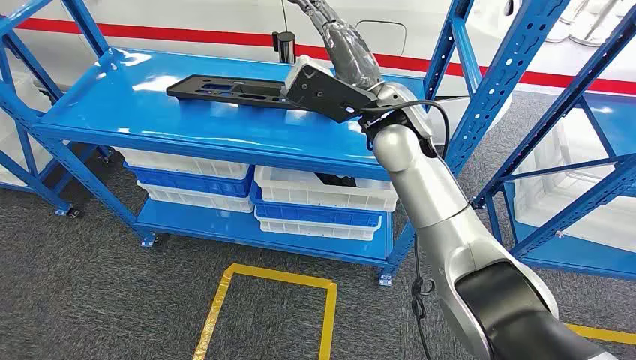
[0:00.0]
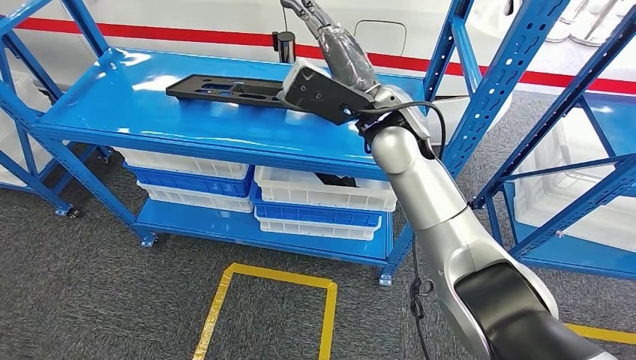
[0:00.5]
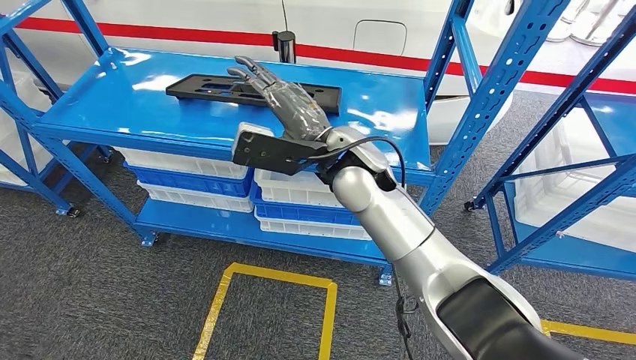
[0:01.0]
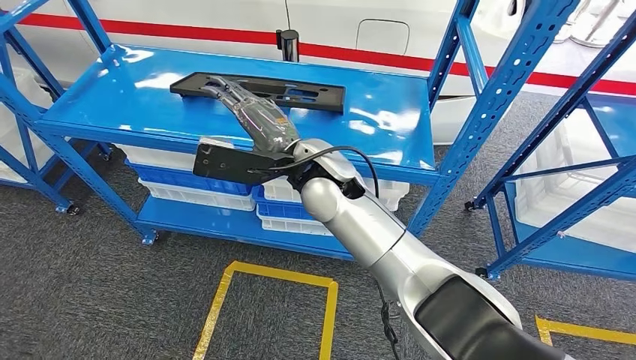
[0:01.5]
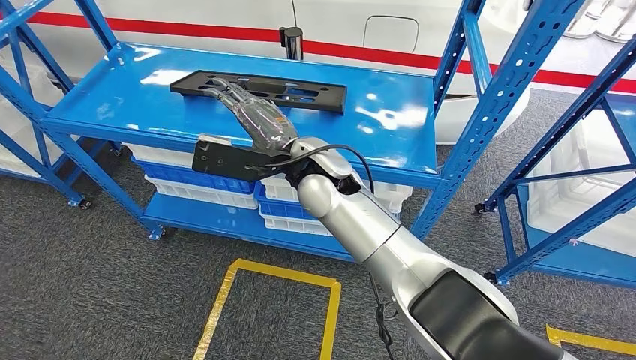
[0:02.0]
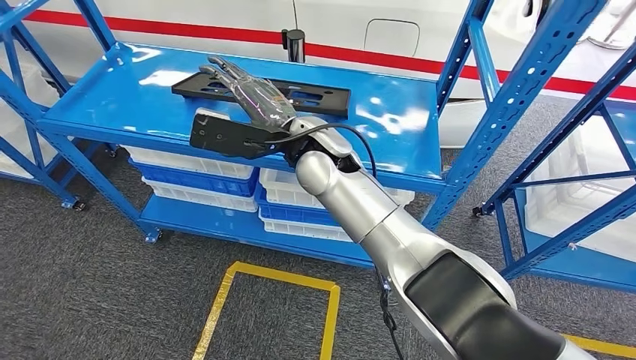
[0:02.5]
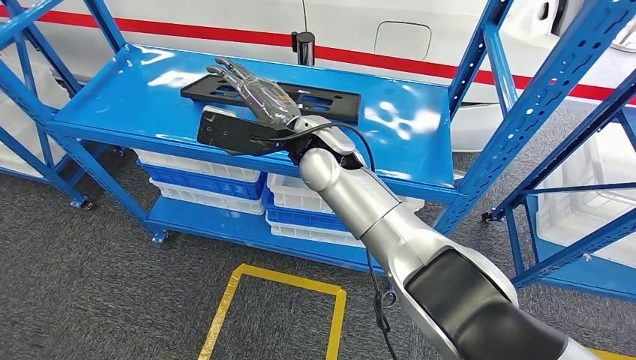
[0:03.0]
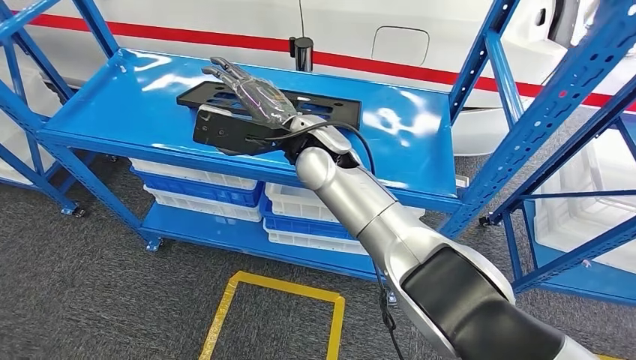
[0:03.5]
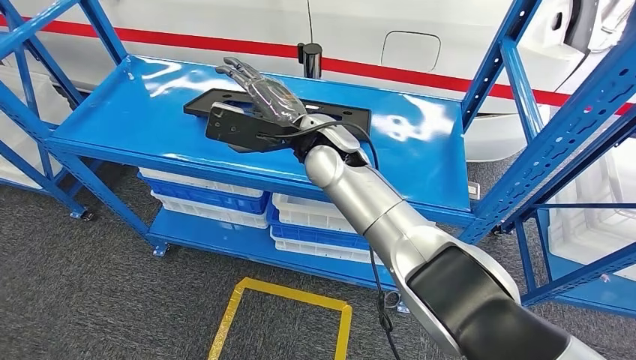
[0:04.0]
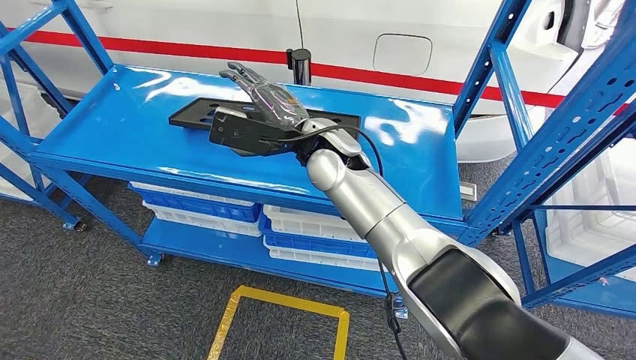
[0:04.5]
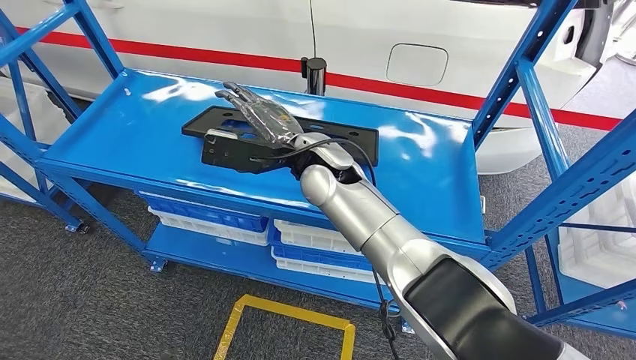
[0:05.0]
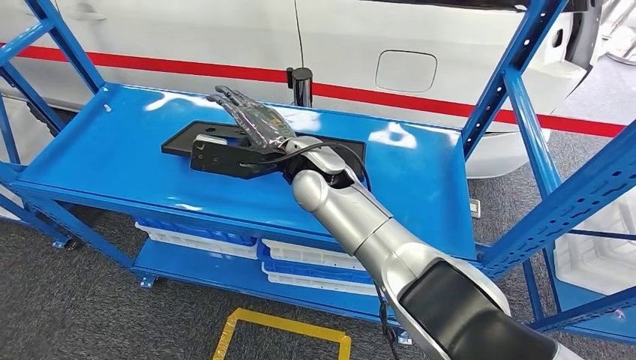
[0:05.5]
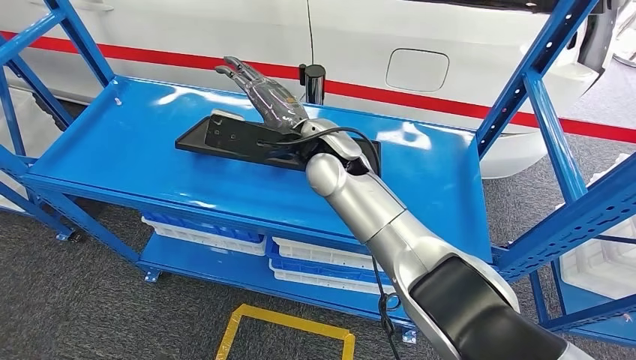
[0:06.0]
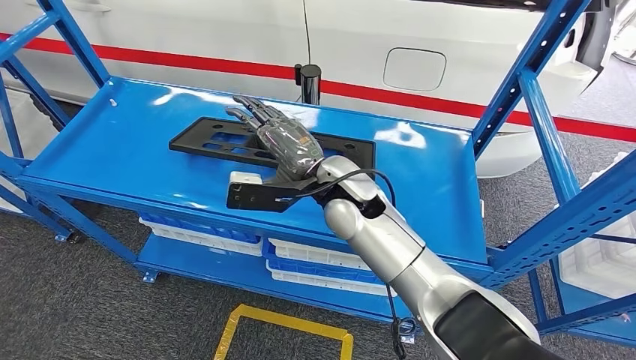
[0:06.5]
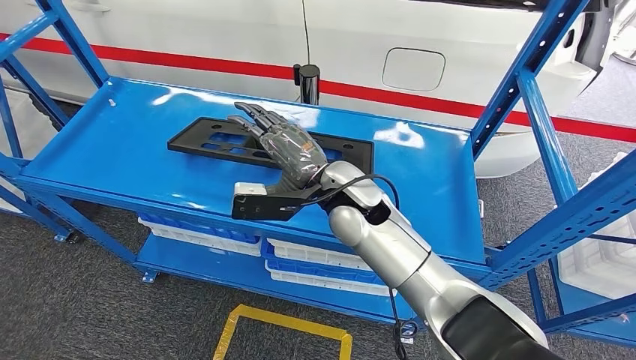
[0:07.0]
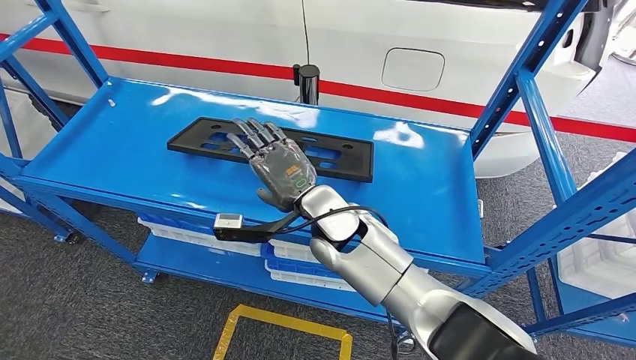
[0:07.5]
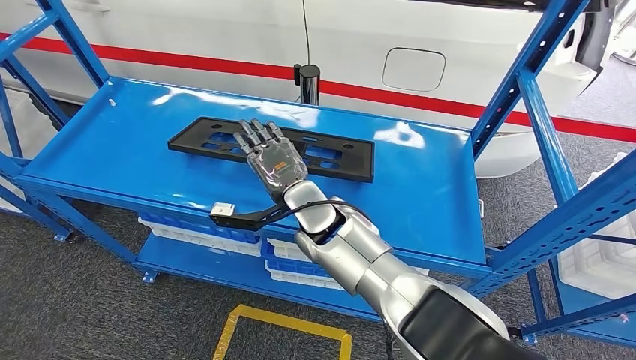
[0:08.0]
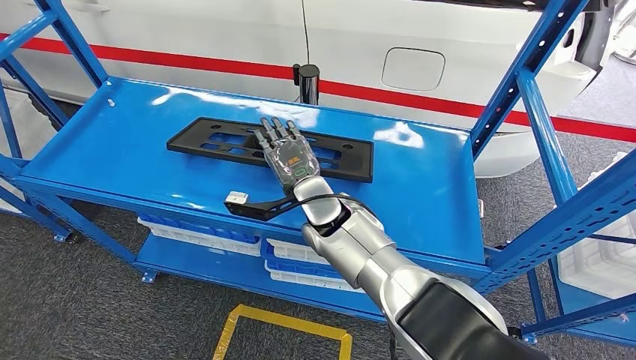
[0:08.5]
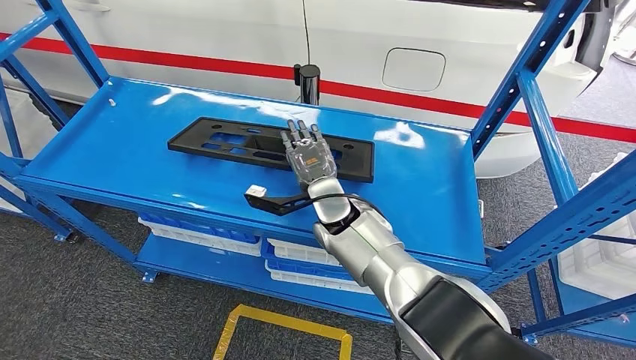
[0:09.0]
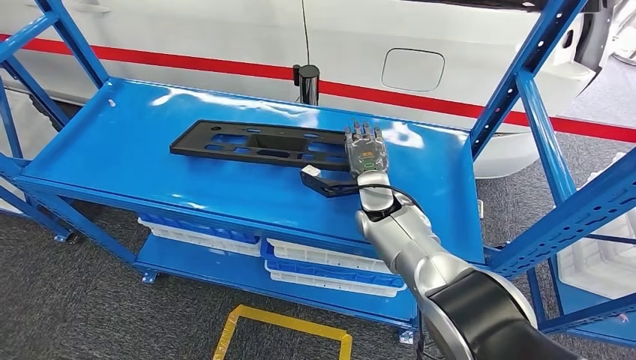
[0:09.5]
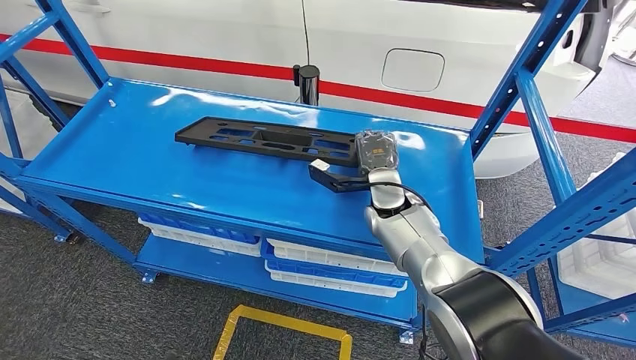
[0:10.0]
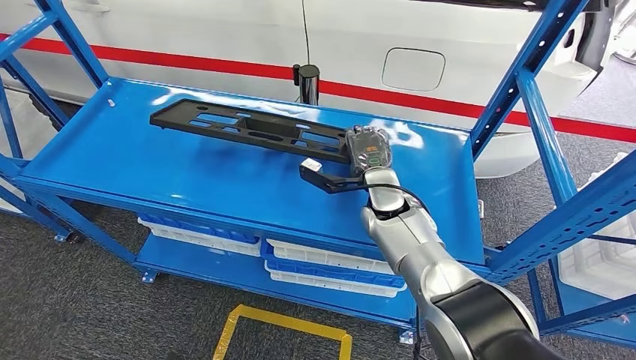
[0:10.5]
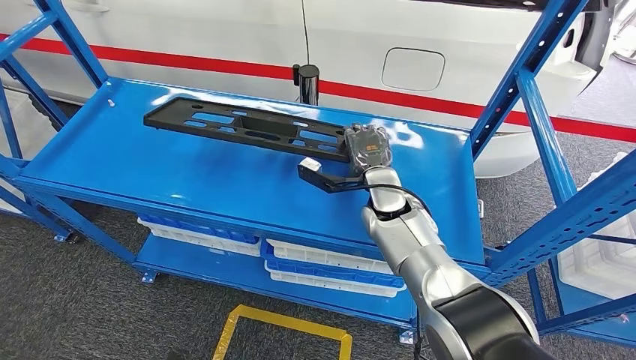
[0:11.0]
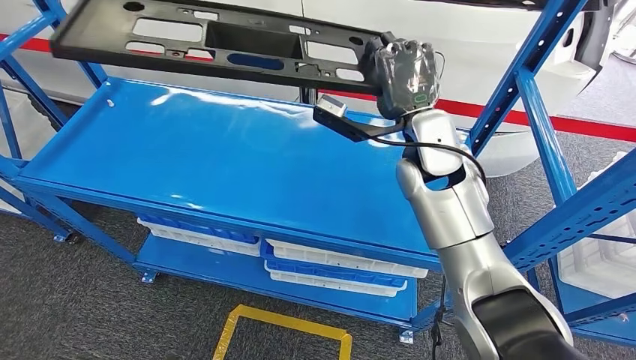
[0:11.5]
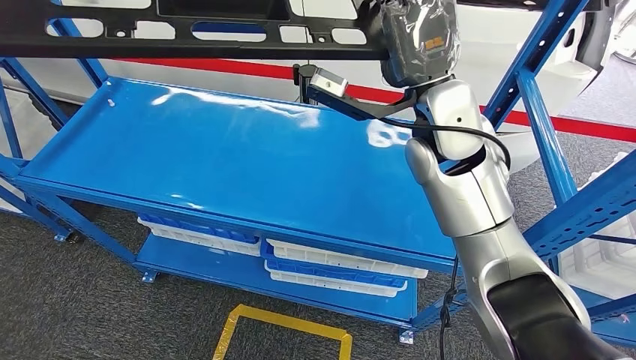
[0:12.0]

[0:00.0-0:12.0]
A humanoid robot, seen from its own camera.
0:08.0 to 0:10.0: The right hand travels to the right by some 15 cm.

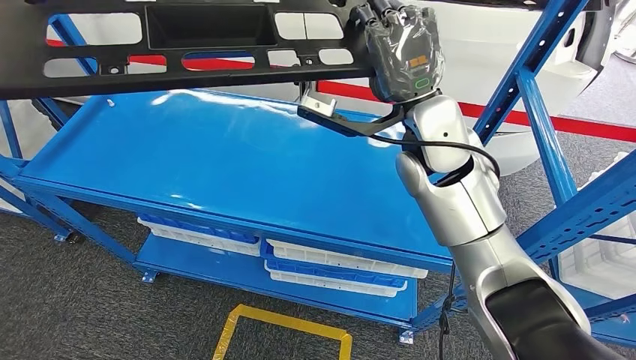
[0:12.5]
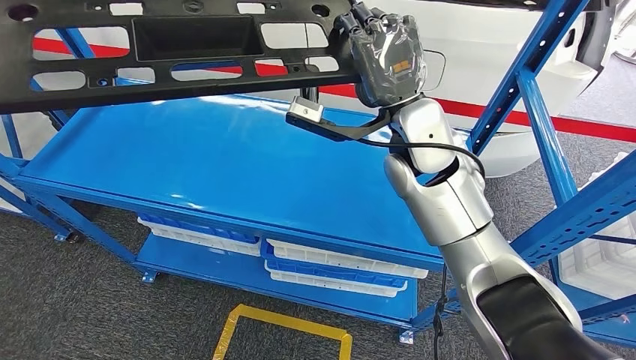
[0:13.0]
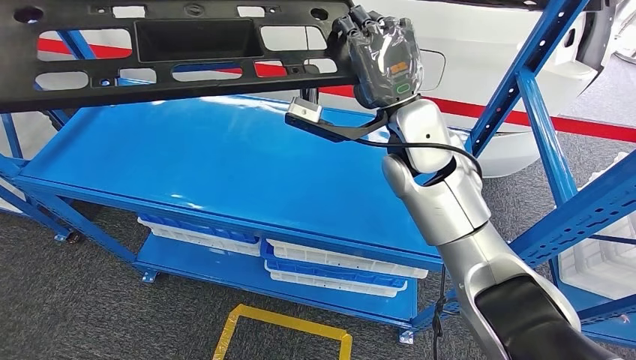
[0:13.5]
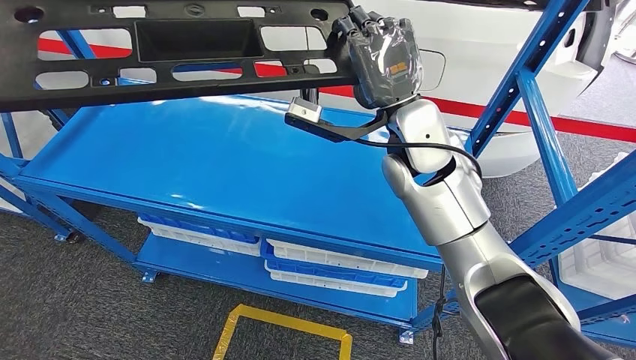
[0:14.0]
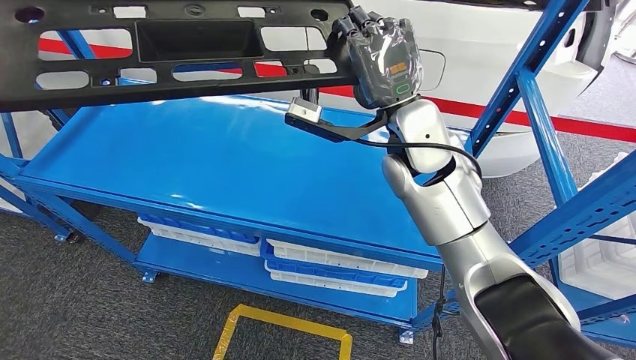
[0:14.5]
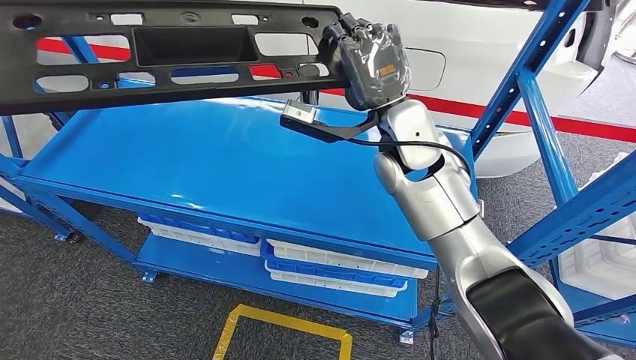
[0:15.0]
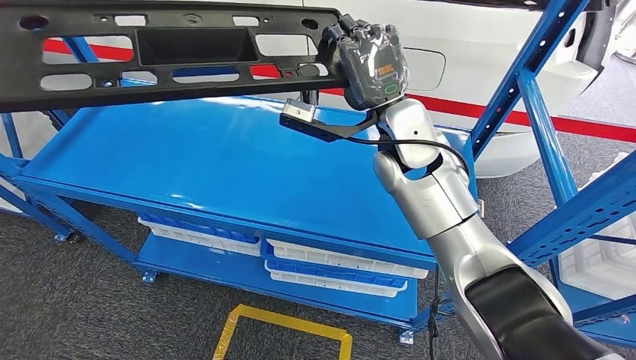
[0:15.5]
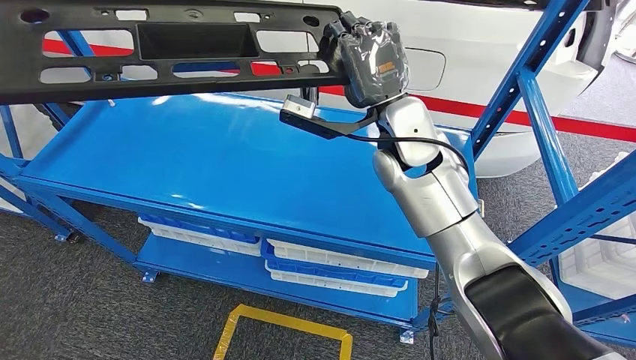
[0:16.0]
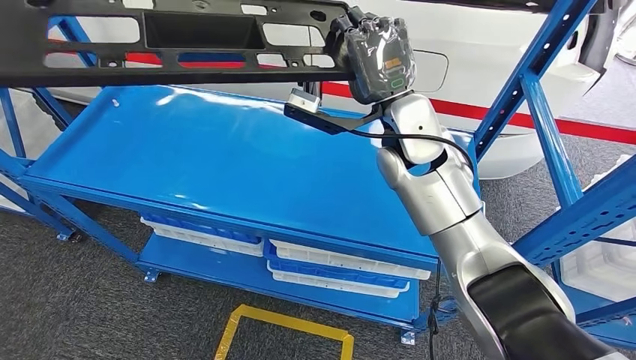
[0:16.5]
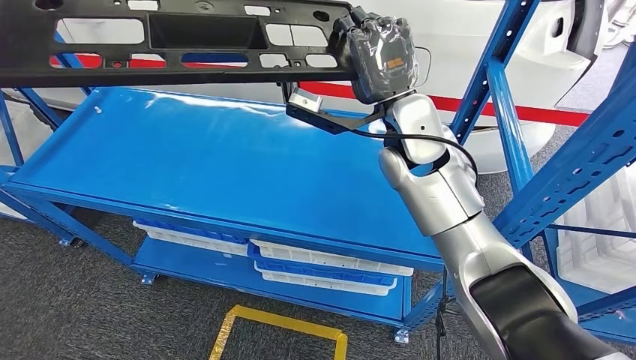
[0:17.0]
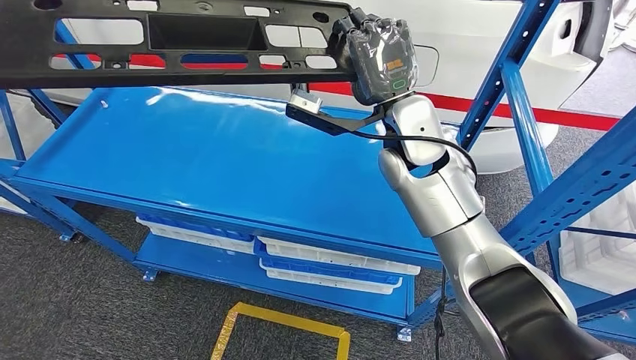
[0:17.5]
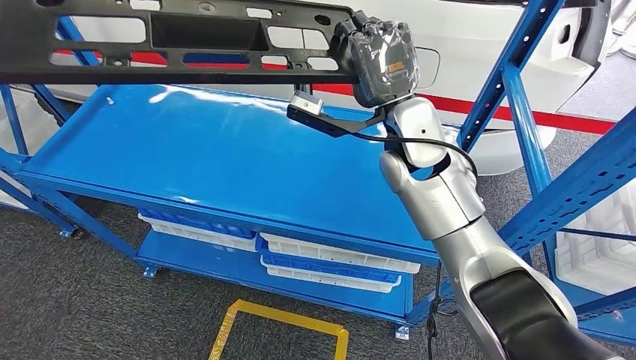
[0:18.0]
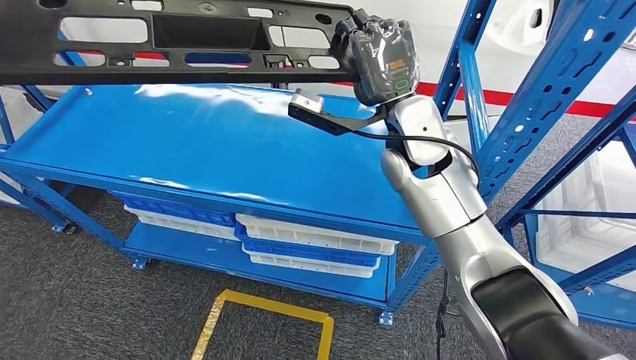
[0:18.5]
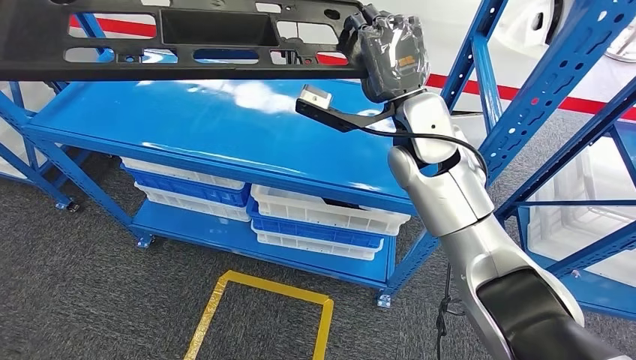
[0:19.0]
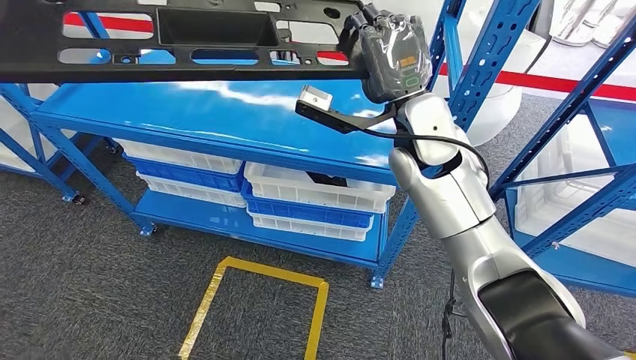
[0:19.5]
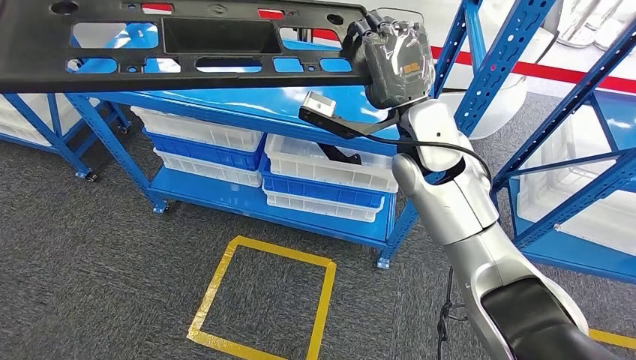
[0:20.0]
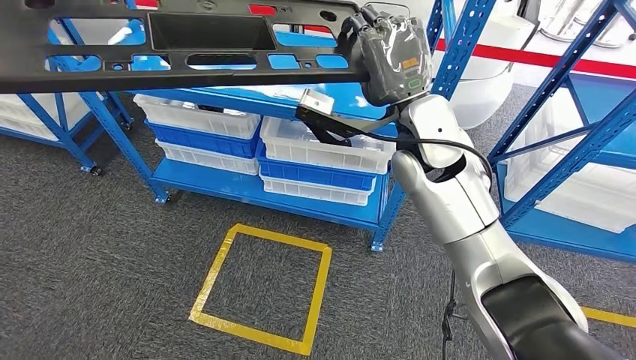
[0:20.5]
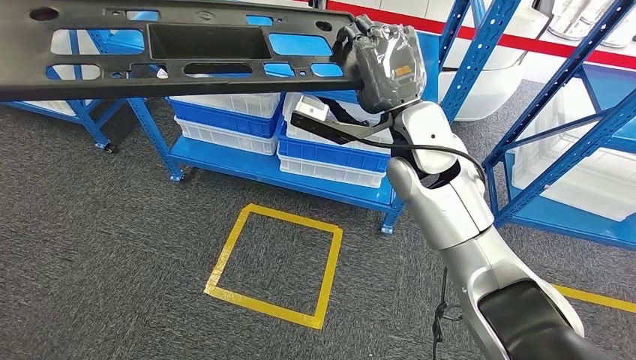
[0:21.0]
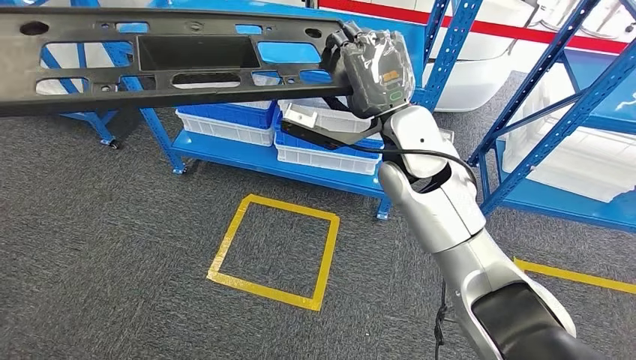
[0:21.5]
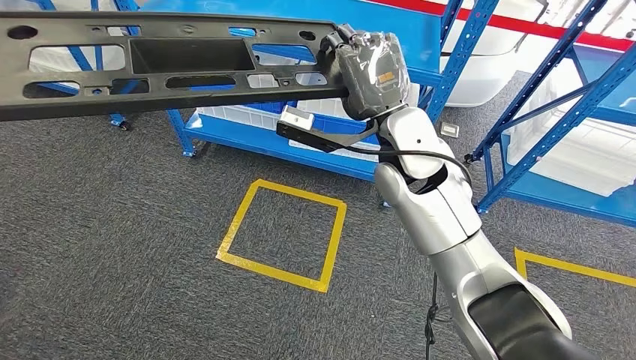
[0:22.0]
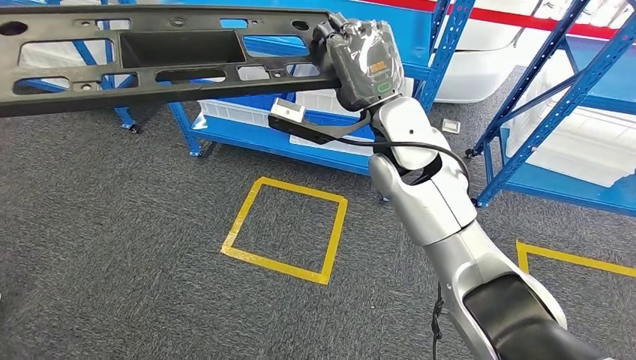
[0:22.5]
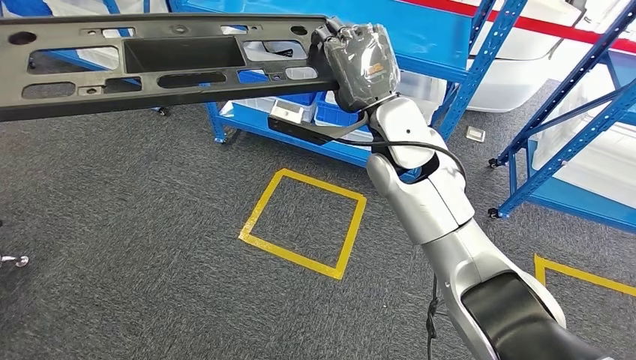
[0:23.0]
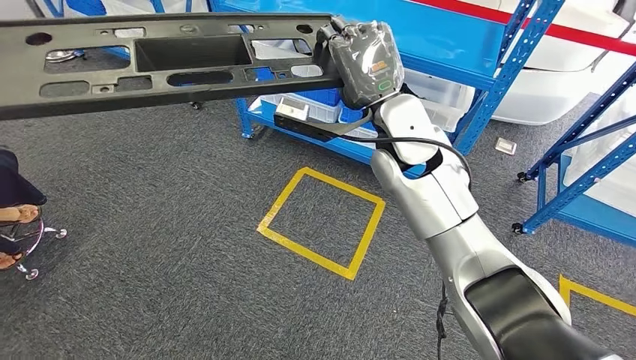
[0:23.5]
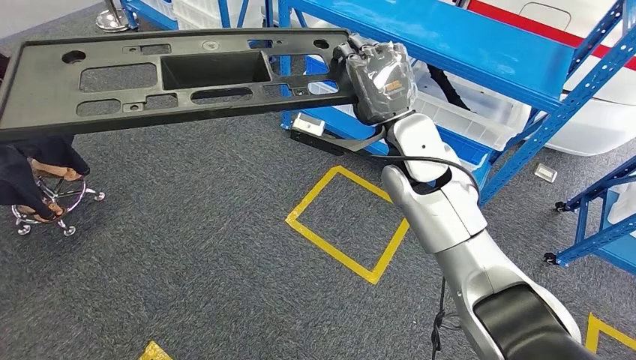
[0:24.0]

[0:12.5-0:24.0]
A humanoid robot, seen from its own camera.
Step, 0:12.5 to 0:15.0: Pick up the large material from the shelf.
